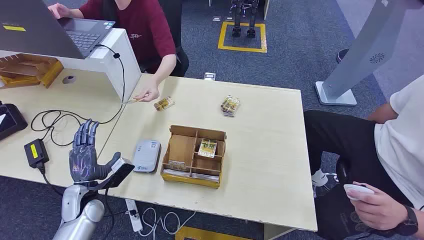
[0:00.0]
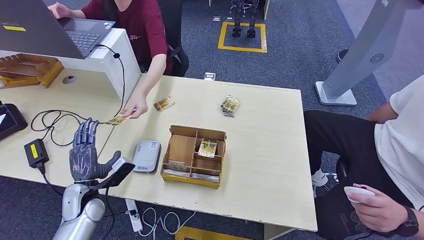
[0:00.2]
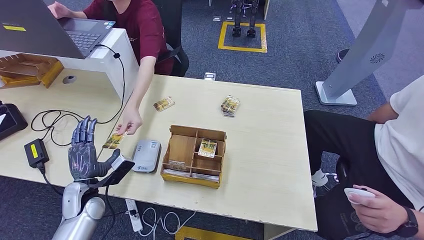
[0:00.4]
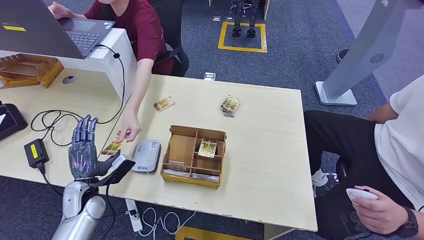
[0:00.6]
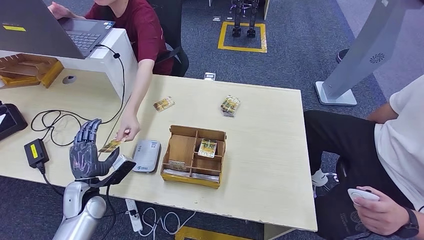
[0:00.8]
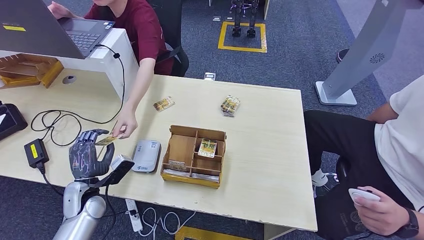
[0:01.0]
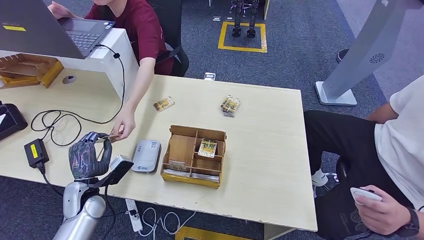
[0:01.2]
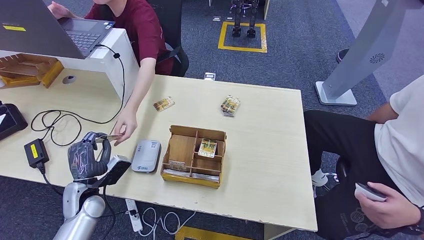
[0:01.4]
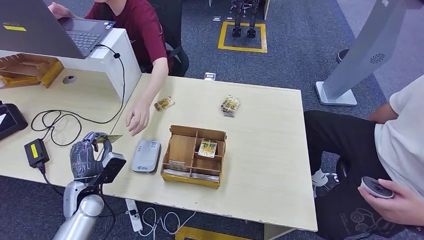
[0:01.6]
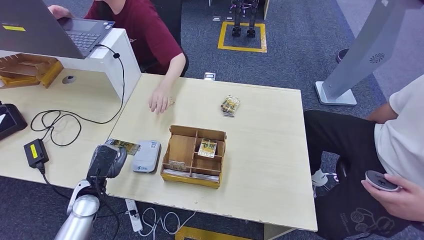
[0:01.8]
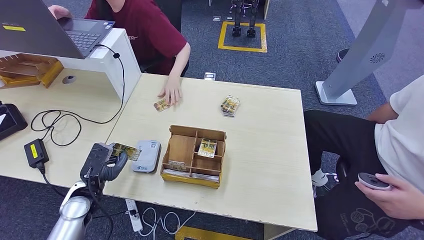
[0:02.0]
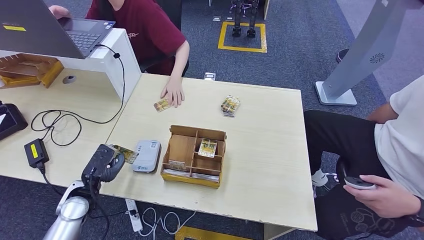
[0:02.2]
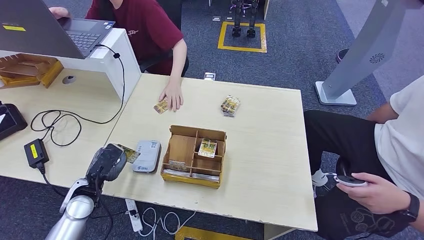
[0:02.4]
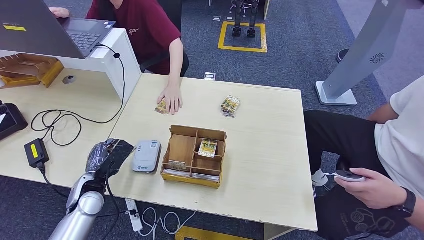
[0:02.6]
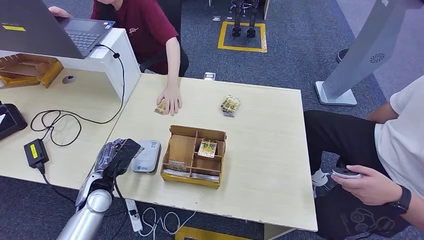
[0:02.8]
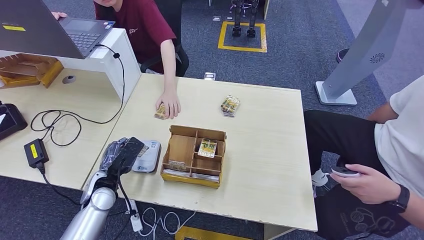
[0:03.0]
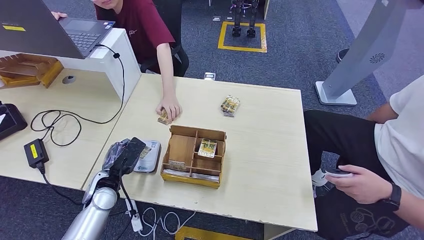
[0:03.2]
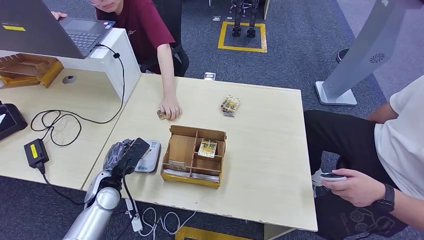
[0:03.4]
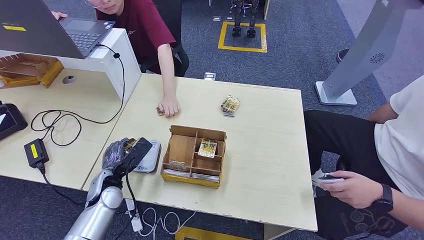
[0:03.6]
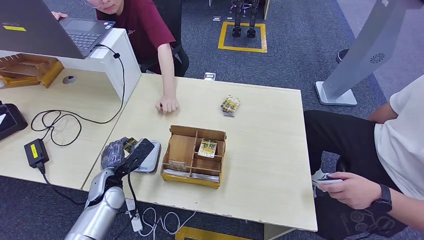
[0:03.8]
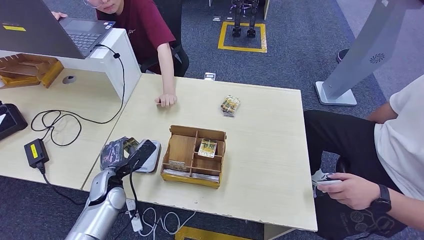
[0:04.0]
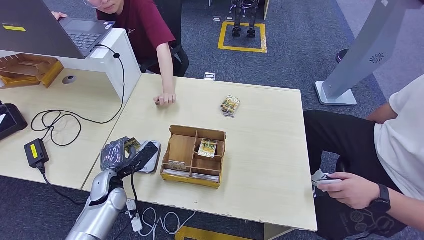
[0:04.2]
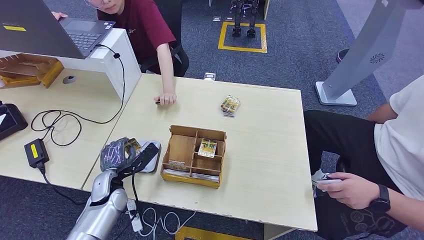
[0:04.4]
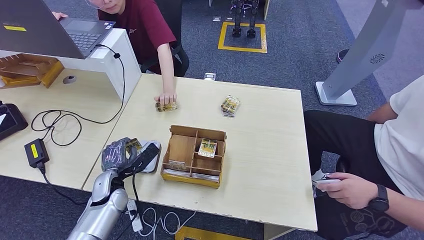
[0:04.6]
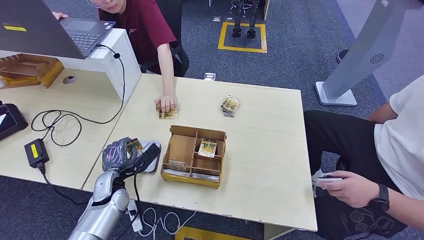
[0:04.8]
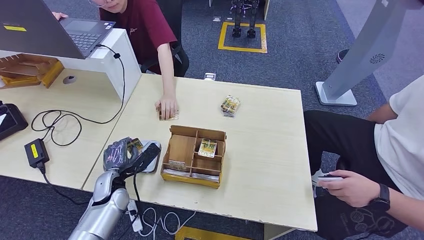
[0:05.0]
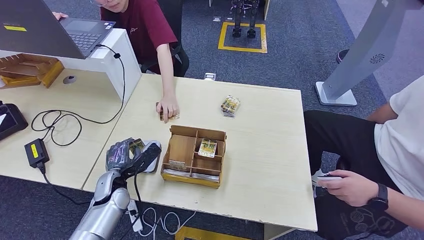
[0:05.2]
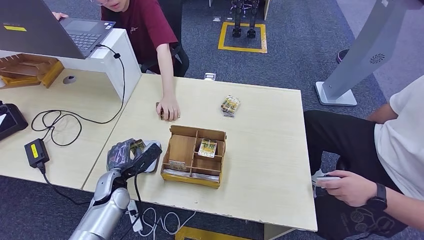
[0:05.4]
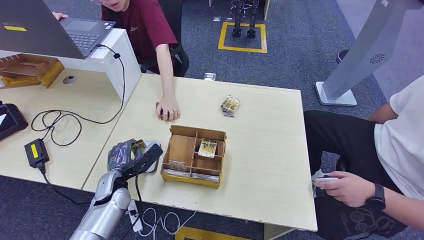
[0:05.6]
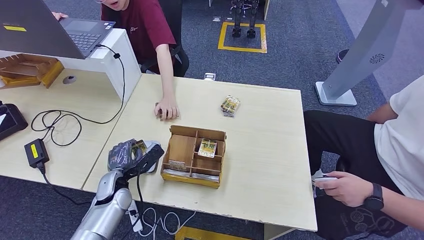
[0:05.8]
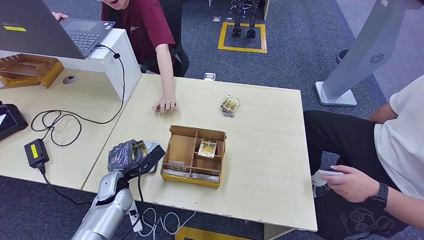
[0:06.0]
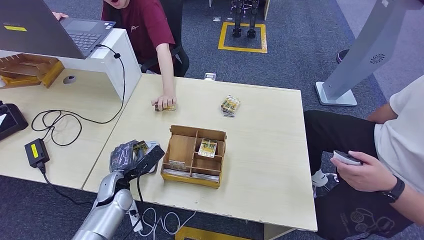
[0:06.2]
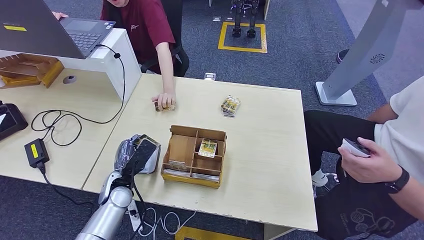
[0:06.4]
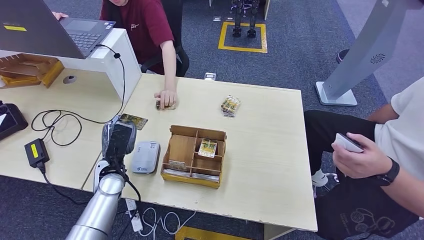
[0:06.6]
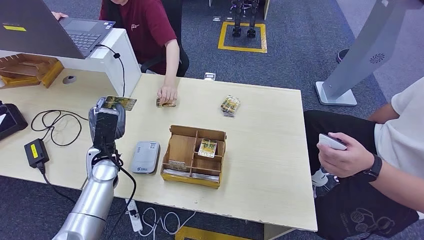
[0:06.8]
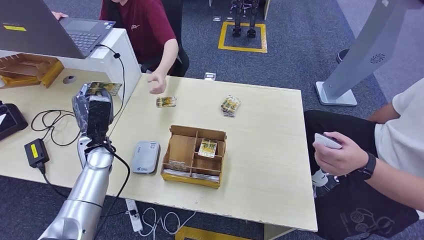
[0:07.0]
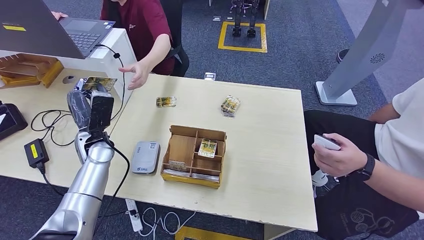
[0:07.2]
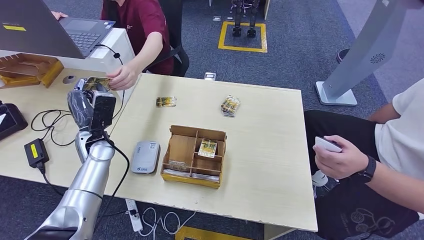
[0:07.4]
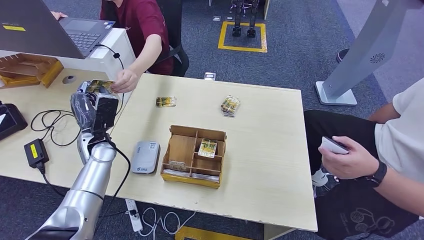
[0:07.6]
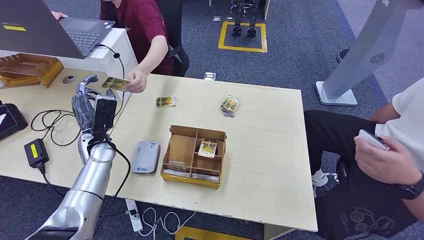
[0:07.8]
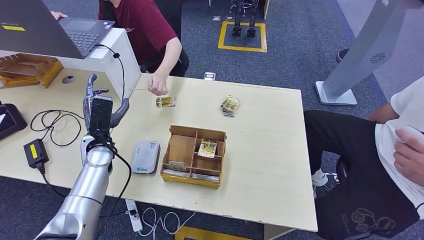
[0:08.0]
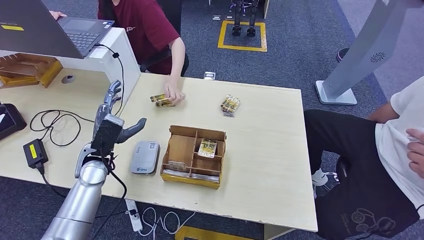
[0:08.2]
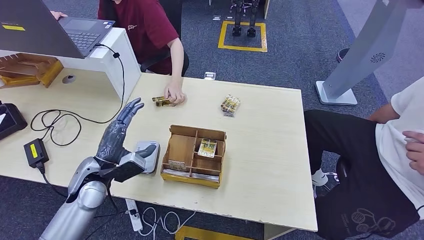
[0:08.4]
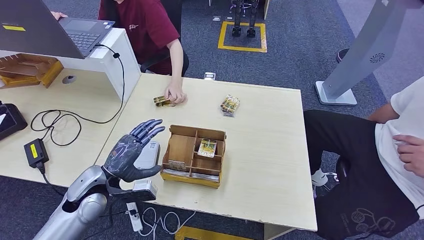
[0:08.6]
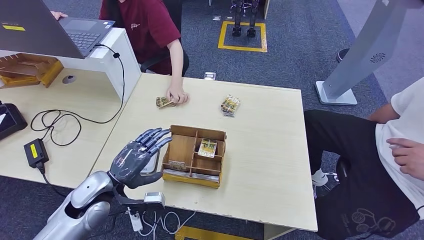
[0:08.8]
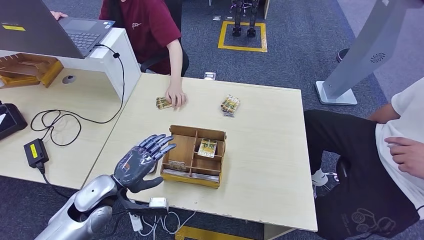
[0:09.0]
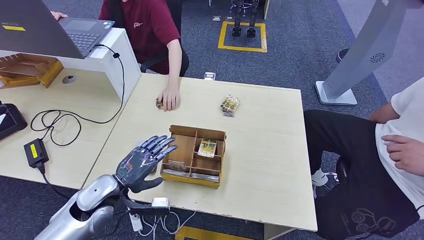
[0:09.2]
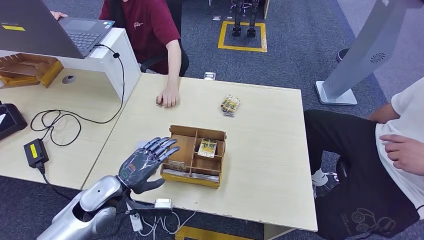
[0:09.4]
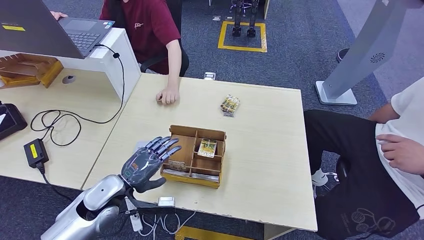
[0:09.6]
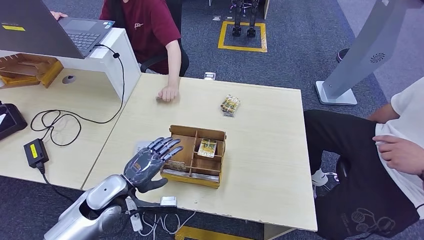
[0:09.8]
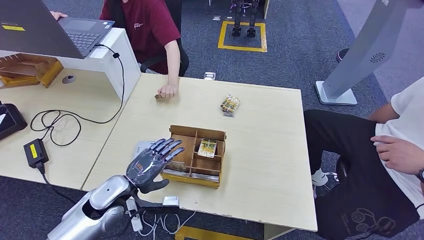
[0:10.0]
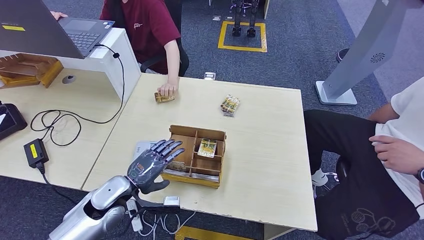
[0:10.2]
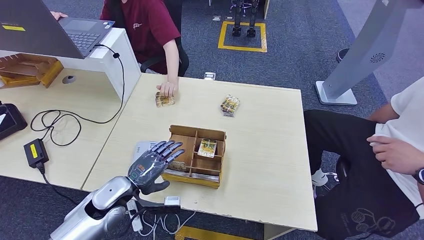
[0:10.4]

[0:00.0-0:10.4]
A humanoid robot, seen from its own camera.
Step, 0:00.0 to 0:01.6: Take the ID card from the person's hand.
Step, 0:02.0 to 0:05.6: Place the ID card on the card reader.
Step, 0:05.8 to 0:07.4: Hand the ID card to the person.
0:01.4 to 0:03.0: The left hand ends up approximately 5 cm from where it was.
0:04.4 to 0:06.0: The hands stay close to where they were, moving slightly.
0:06.0 to 0:07.4: The left hand heads upward and forward, covering approximately 15 cm.
0:07.4 to 0:09.0: The left hand travels backward by about 15 cm.
0:09.0 to 0:10.4: The hands make only small movements.

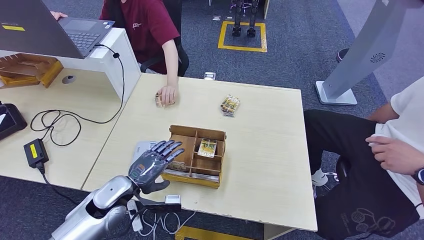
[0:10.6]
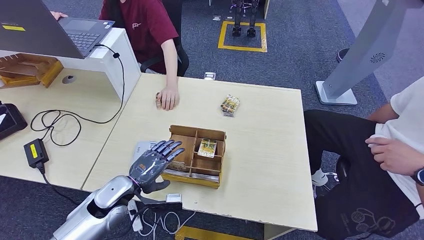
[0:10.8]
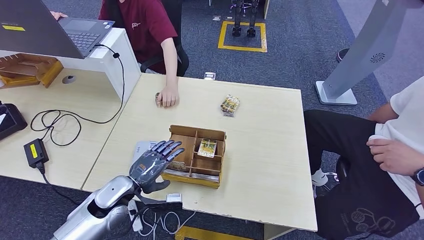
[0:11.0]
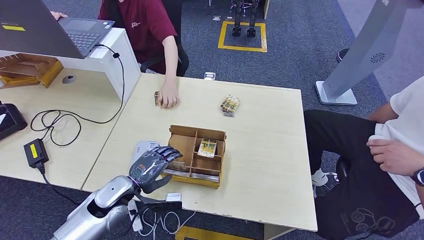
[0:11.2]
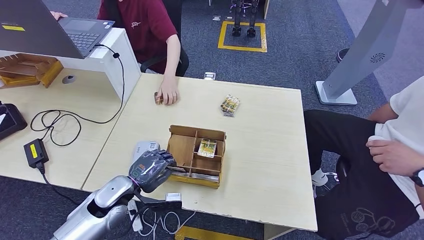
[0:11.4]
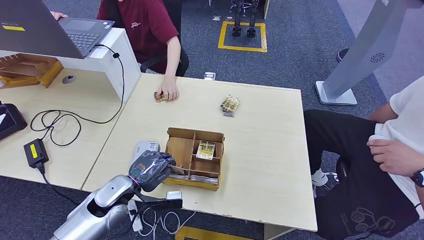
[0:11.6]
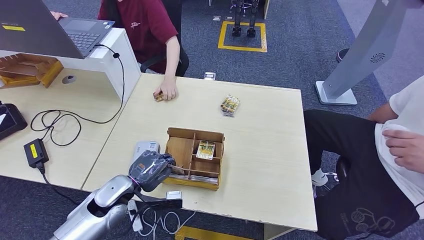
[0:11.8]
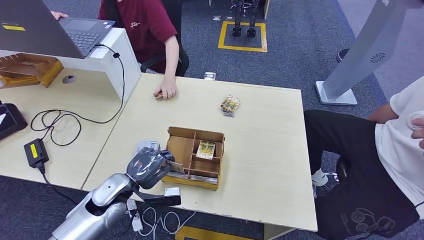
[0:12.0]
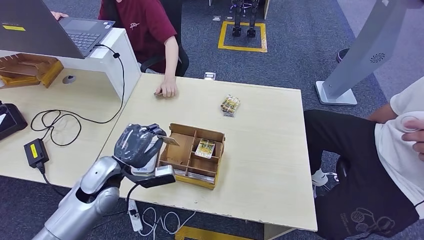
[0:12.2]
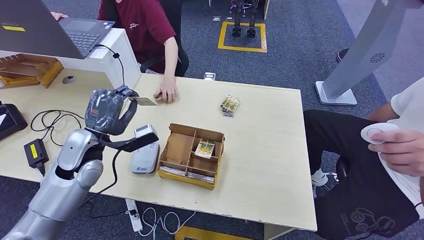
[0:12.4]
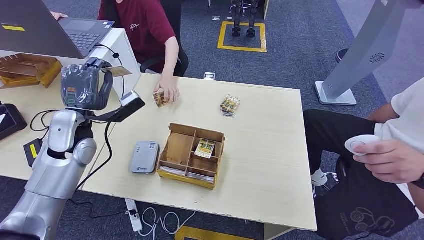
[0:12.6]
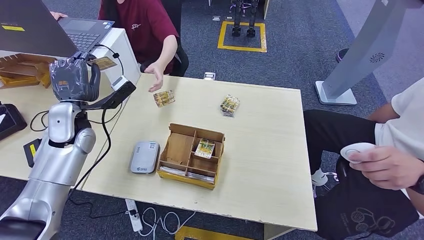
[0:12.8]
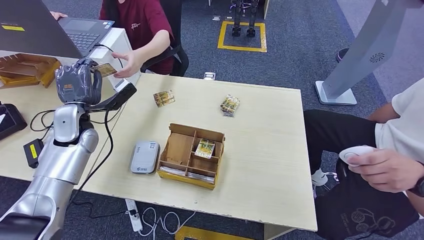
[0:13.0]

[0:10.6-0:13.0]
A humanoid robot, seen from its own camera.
Step, 0:11.0 to 0:12.6: Pick up the room key from the key card box.
Step, 0:12.8 to 0:13.0: Hand the room key to the person.
0:10.6 to 0:11.8: Neither hand changes place.
